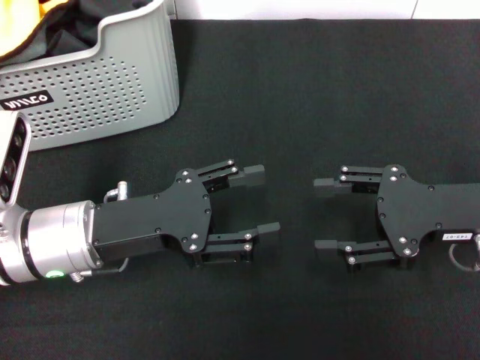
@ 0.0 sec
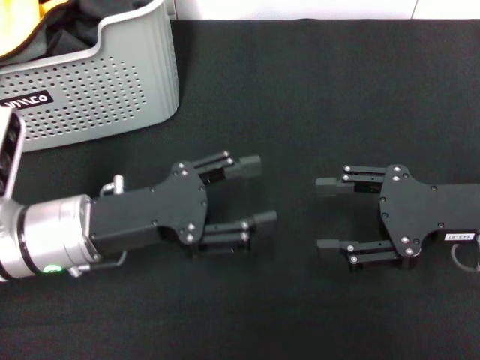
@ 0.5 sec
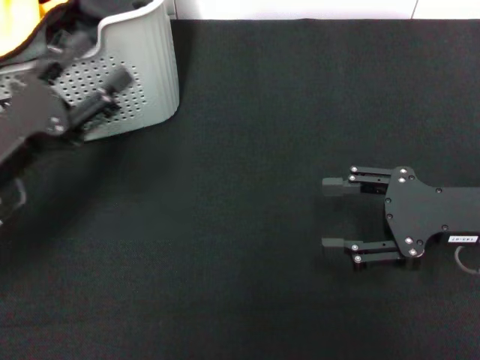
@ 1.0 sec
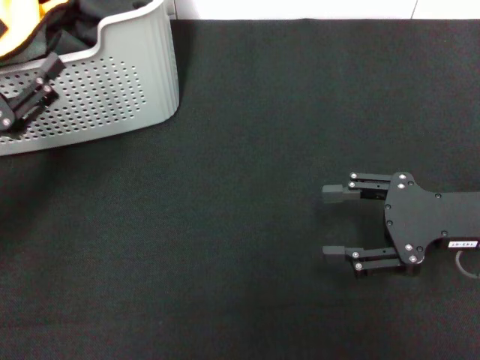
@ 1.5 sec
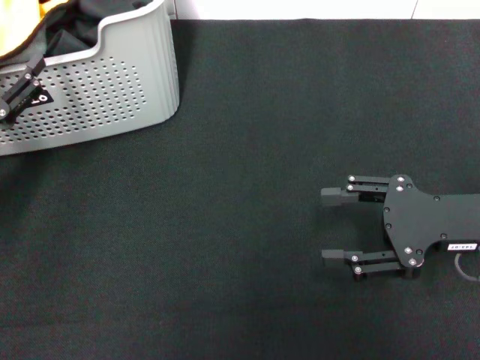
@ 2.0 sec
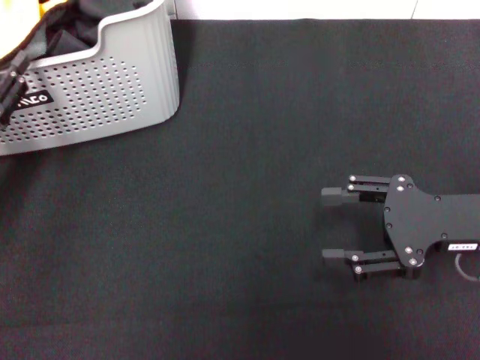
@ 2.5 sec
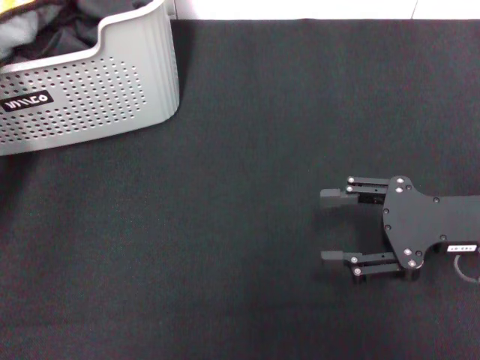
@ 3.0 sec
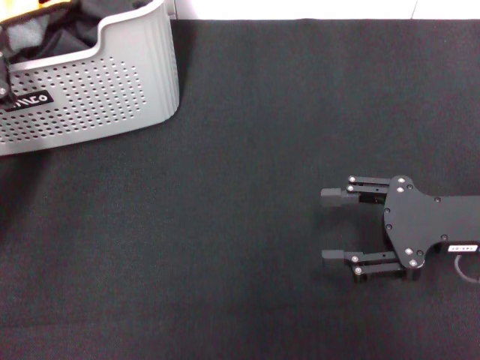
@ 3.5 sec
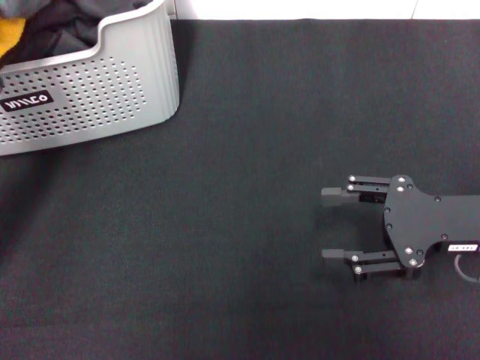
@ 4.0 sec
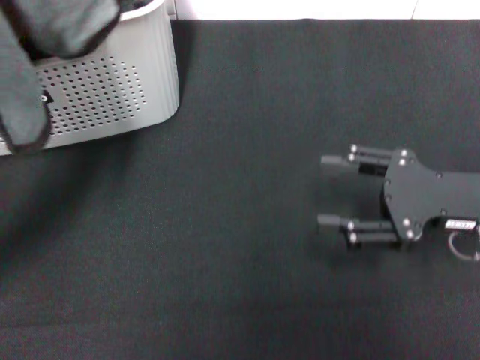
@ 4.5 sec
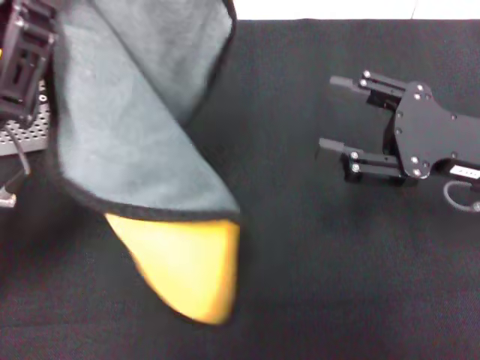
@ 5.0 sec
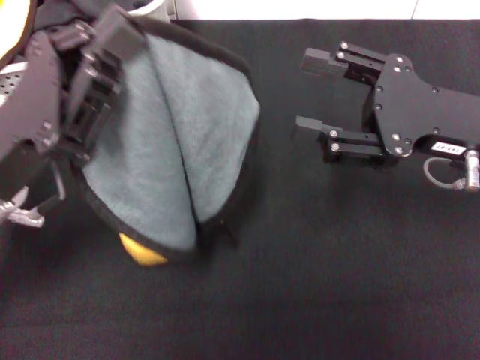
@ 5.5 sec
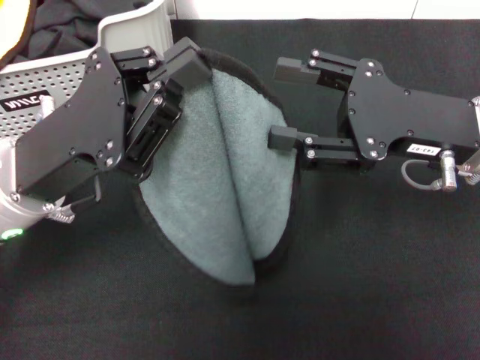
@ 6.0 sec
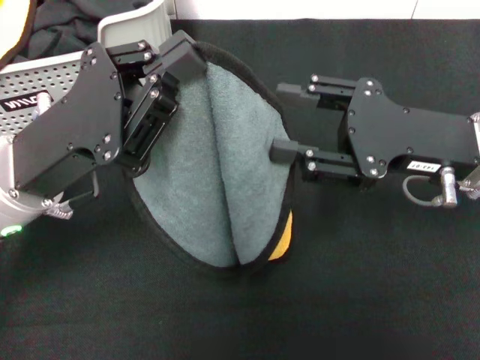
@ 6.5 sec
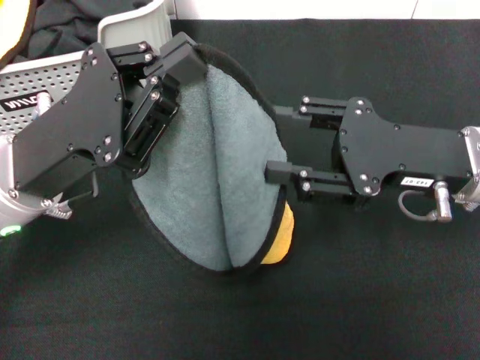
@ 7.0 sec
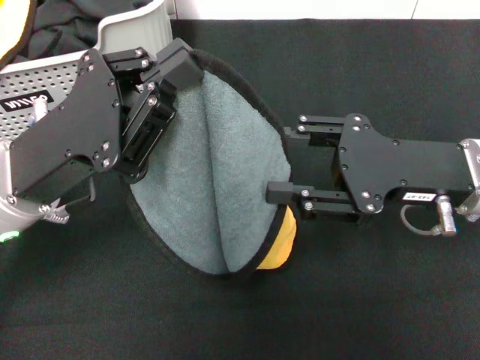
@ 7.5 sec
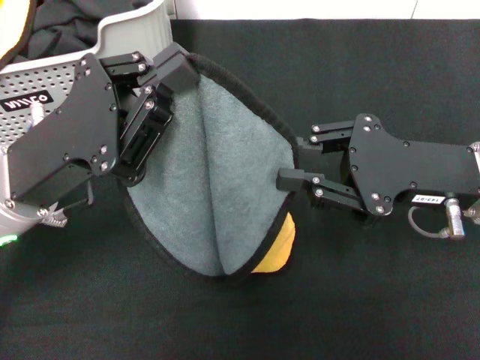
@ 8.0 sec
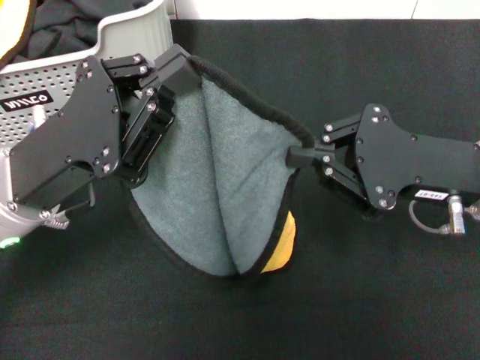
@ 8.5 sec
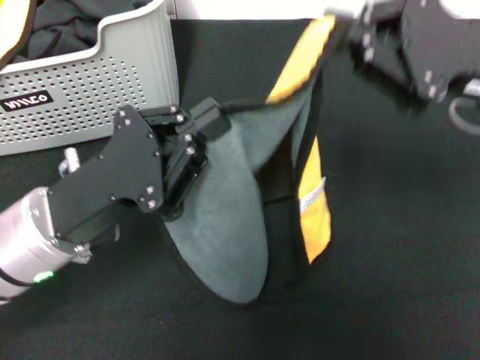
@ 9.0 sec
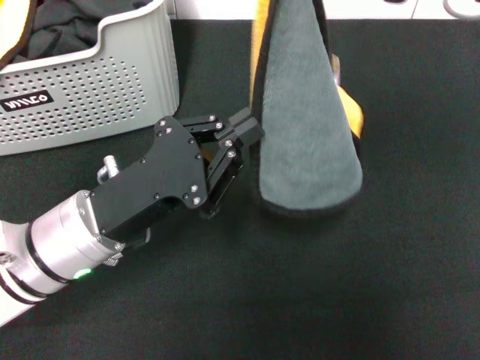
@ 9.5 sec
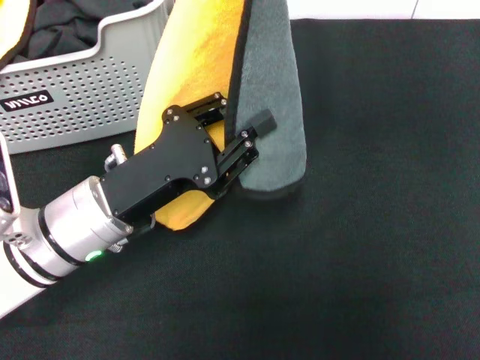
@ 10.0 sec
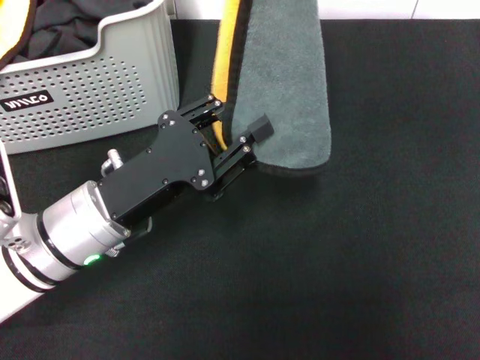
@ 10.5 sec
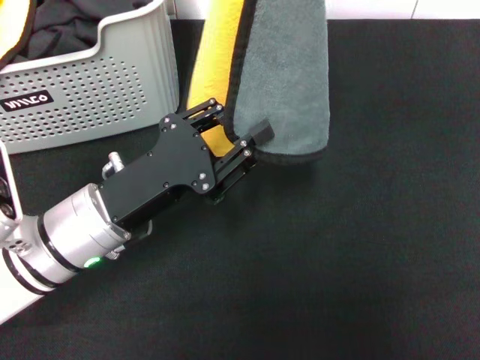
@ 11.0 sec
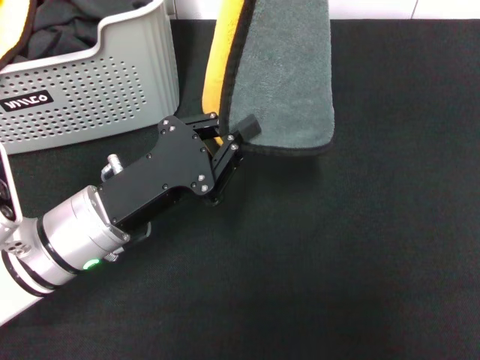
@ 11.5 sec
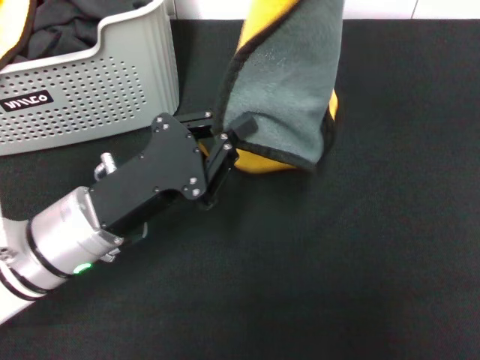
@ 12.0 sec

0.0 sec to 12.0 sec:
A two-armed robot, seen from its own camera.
Task of the whole recording: pick up the towel from the storage box and lay it flat on the black tablecloth.
Step, 0.0 sec to 2.5 sec: Pick up a towel with the left gripper.
Step, 3.0 sec to 8.0 sec: Spread the towel flat with the left gripper.
0.0 sec to 2.0 sec: The left gripper shifts some 15 cm to the left.
2.0 sec to 4.0 sec: The left gripper closes up.
4.0 sec to 6.0 sec: The right gripper moves about 10 cm; the left gripper travels to the right by some 10 cm.
6.0 sec to 8.0 sec: The right gripper closes its fingers.
8.0 sec to 10.0 sec: The left gripper is displaced downward by roughly 5 cm. Meanwhile the right gripper travels upward by roughly 15 cm, and closes its fingers.

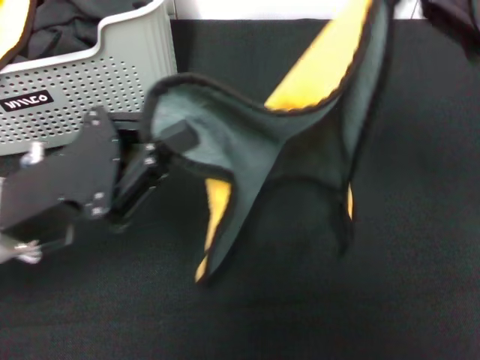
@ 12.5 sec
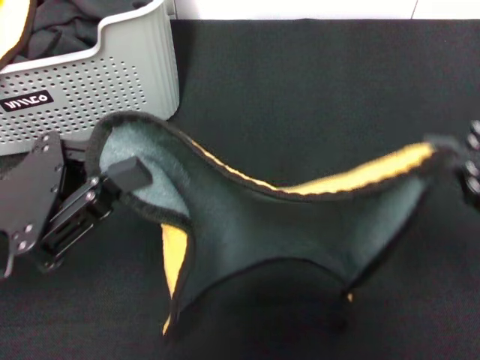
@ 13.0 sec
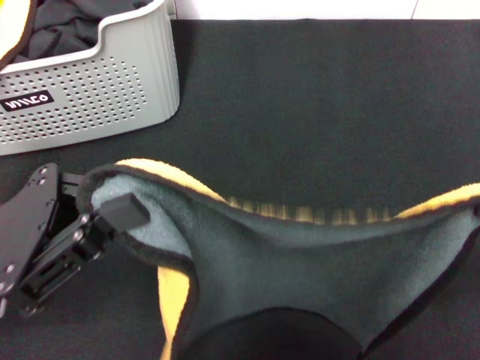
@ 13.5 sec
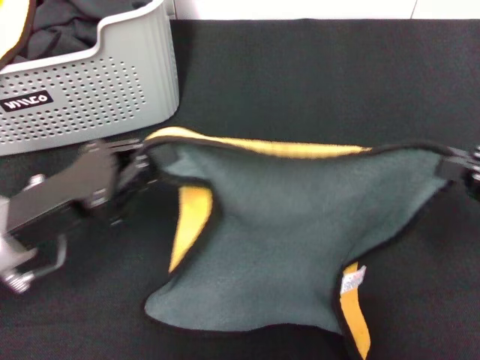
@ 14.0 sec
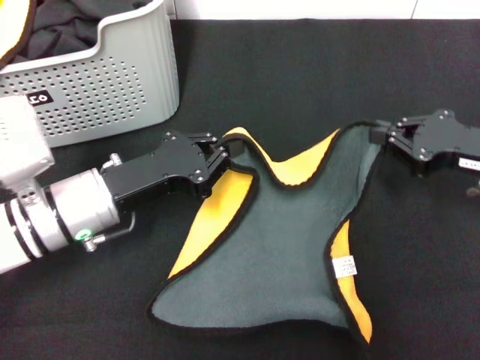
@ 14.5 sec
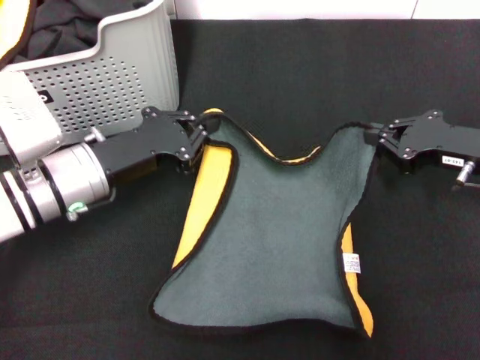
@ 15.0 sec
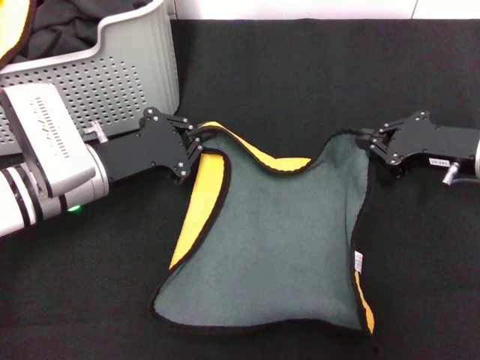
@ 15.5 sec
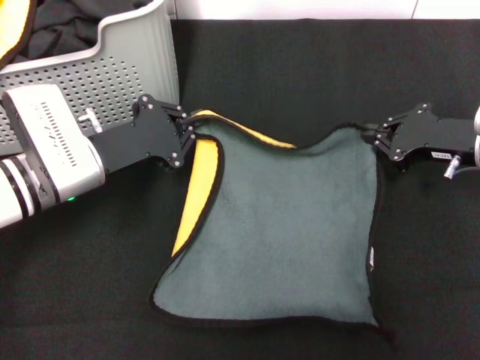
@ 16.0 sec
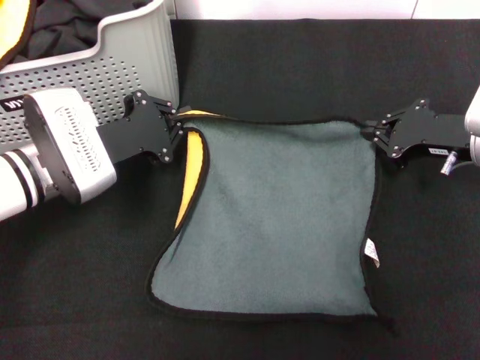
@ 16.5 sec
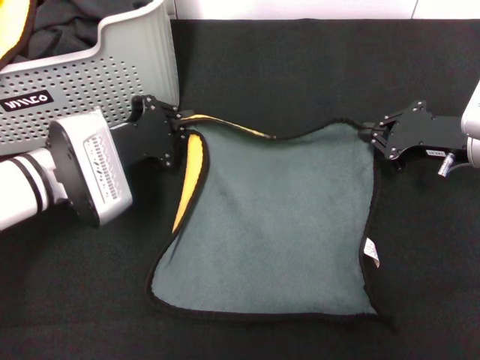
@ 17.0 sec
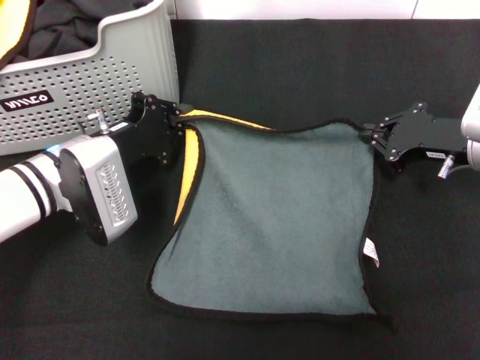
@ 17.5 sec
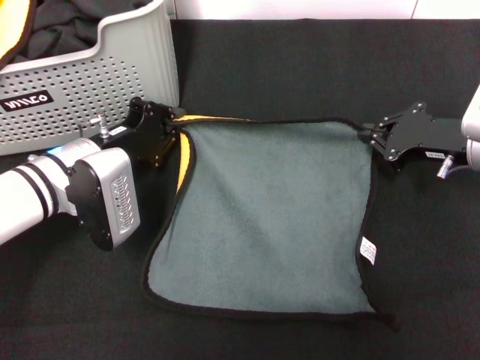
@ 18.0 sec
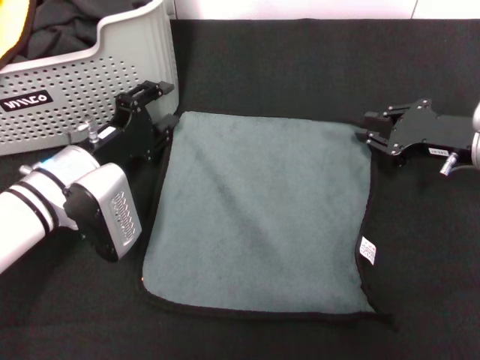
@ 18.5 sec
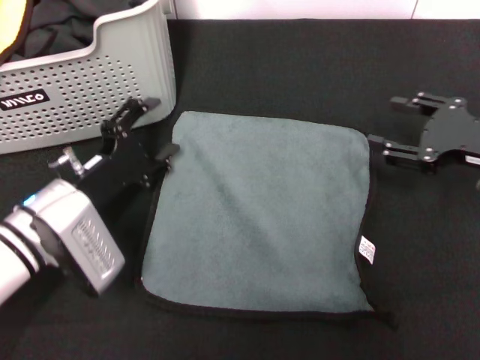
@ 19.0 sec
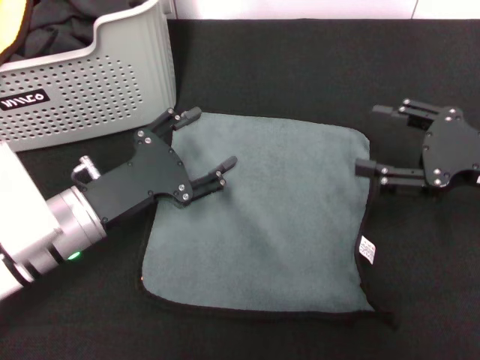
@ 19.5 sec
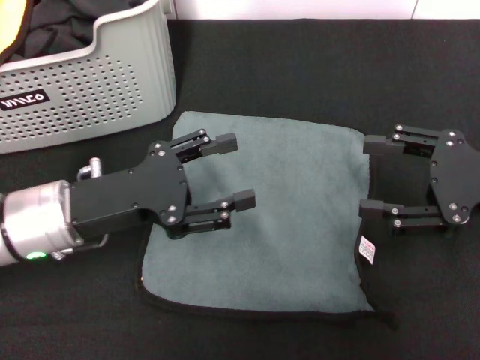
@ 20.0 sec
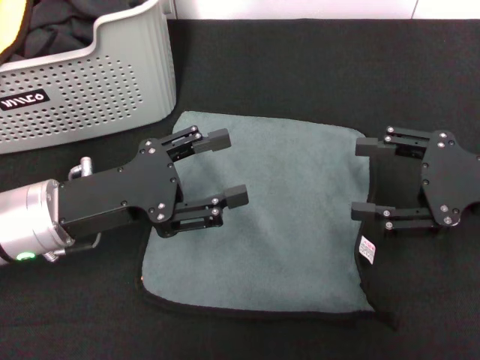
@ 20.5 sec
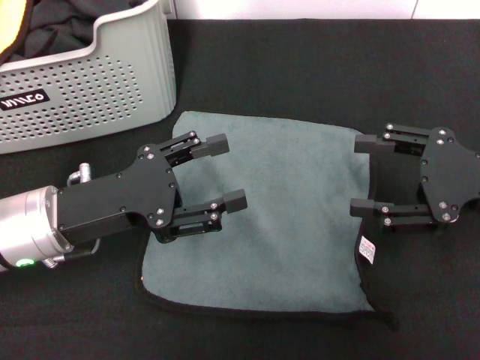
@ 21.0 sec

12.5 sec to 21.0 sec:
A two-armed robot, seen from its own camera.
Task of the whole recording: pick up the towel from the storage box and lay it flat on the black tablecloth.
Step, 12.5 sec to 18.5 sec: Spread the towel flat with the right gripper.
12.5 sec to 14.5 sec: The right gripper goes some 20 cm downward. Meanwhile the left gripper shifts about 10 cm downward and forward.
14.5 sec to 16.5 sec: The right gripper moves some 5 cm, while the left gripper moves forward, about 5 cm.
16.5 sec to 19.0 sec: The left gripper shifts some 5 cm backward, and opens its fingers. Meanwhile the right gripper ends up approximately 5 cm from where it was, and opens up.
19.0 sec to 21.0 sec: The left gripper goes about 5 cm upward, while the right gripper moves some 5 cm.
